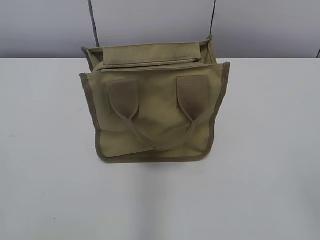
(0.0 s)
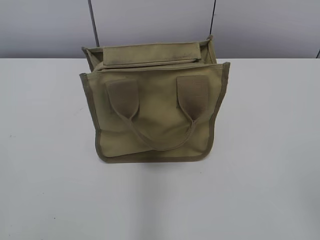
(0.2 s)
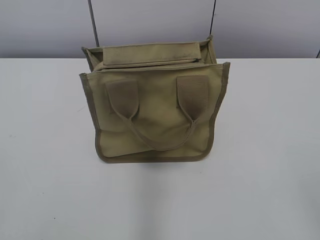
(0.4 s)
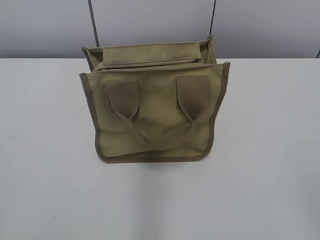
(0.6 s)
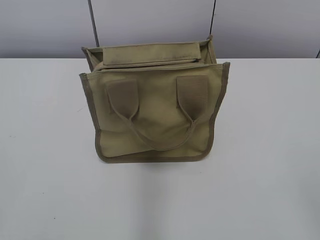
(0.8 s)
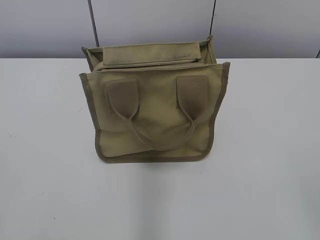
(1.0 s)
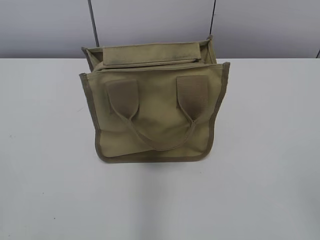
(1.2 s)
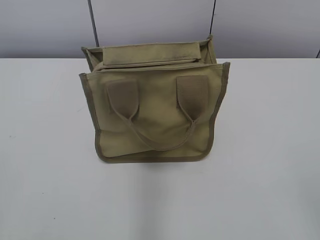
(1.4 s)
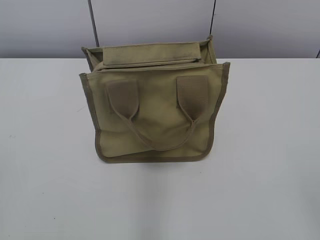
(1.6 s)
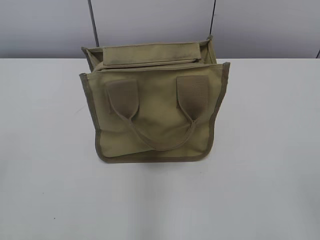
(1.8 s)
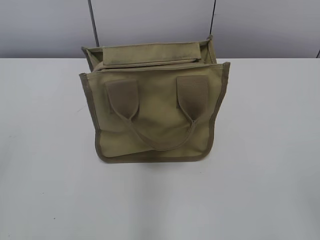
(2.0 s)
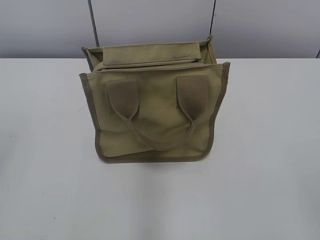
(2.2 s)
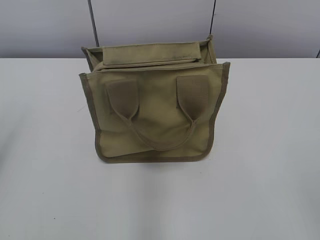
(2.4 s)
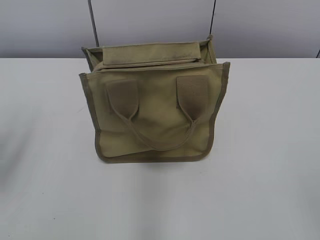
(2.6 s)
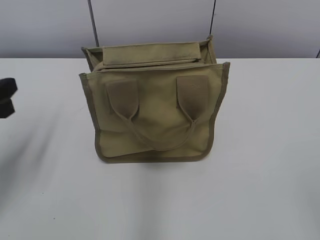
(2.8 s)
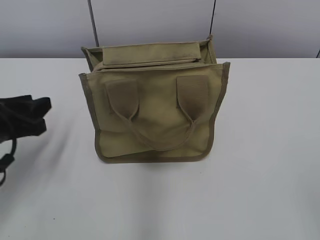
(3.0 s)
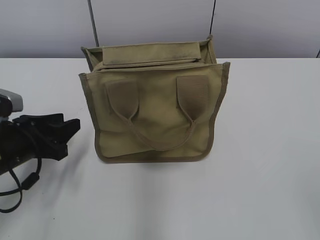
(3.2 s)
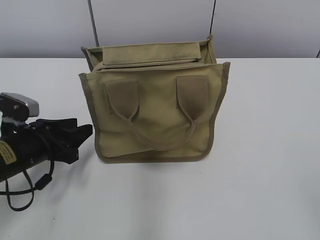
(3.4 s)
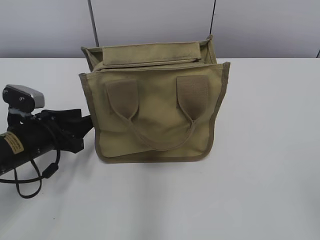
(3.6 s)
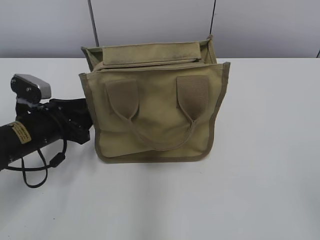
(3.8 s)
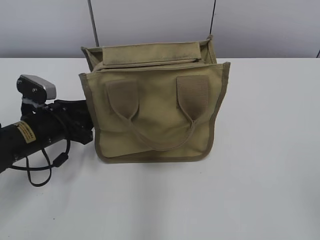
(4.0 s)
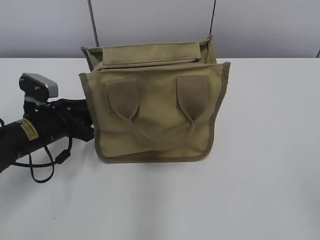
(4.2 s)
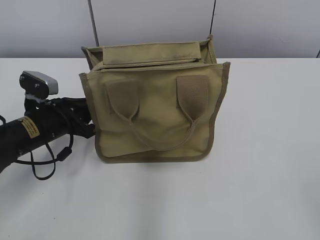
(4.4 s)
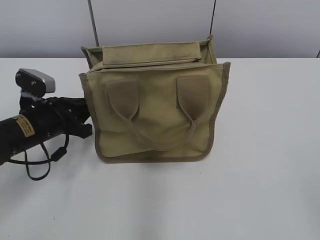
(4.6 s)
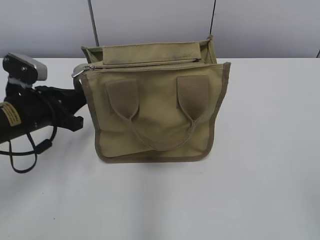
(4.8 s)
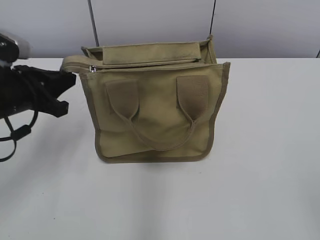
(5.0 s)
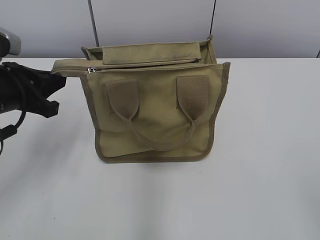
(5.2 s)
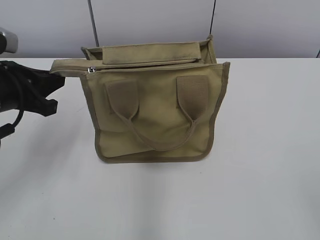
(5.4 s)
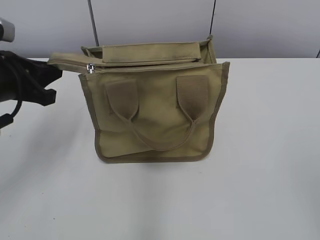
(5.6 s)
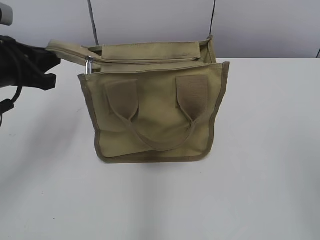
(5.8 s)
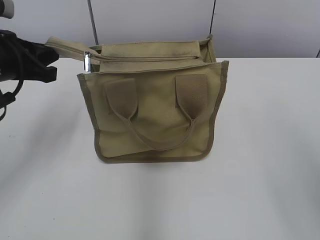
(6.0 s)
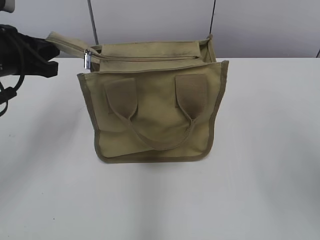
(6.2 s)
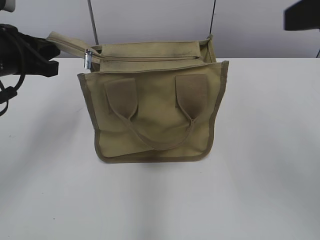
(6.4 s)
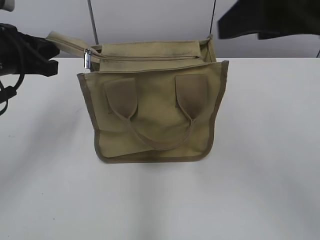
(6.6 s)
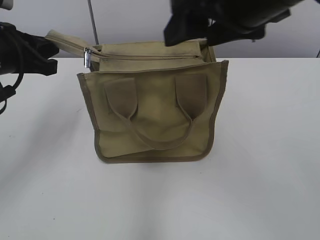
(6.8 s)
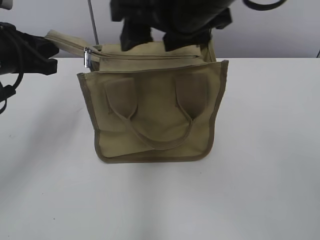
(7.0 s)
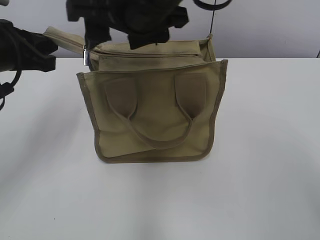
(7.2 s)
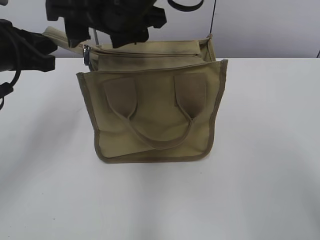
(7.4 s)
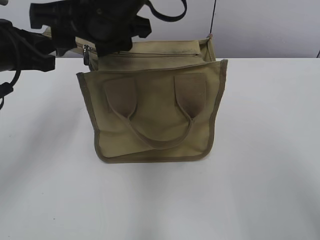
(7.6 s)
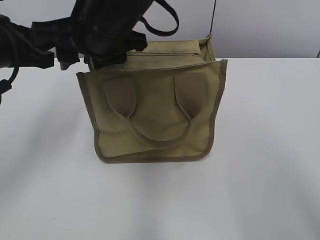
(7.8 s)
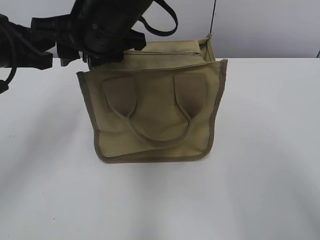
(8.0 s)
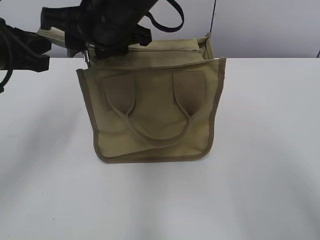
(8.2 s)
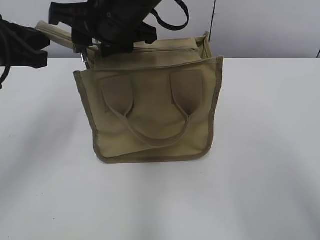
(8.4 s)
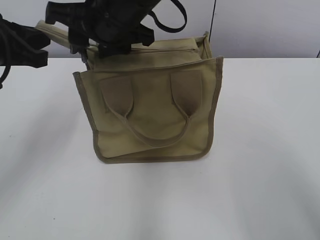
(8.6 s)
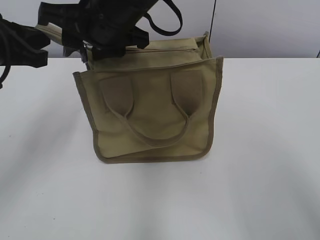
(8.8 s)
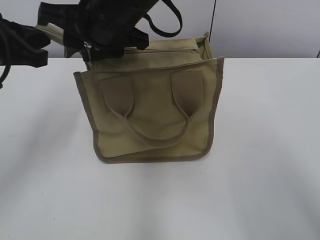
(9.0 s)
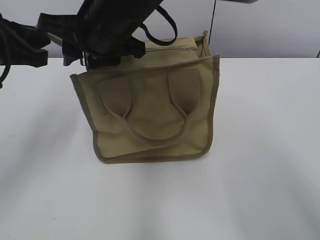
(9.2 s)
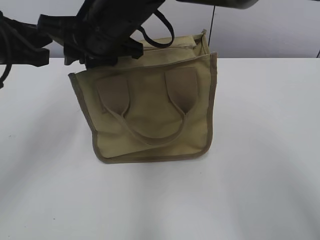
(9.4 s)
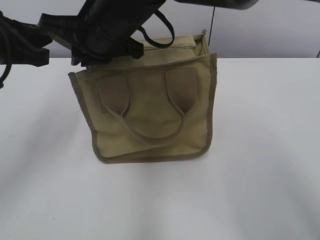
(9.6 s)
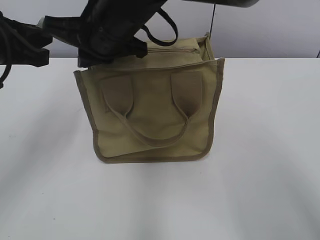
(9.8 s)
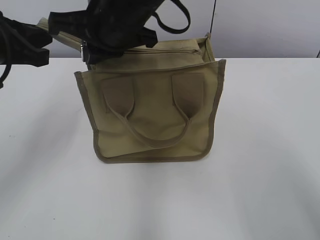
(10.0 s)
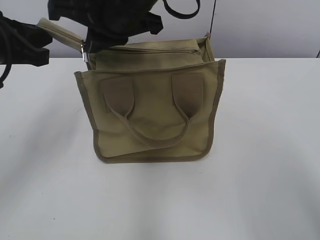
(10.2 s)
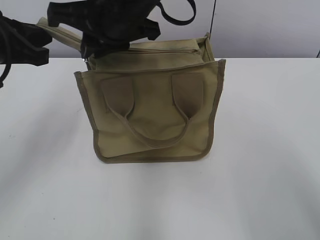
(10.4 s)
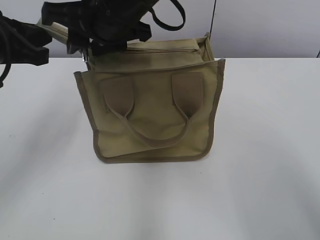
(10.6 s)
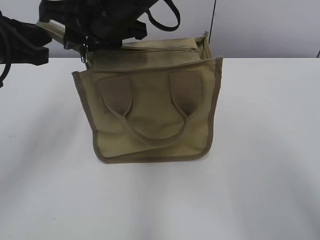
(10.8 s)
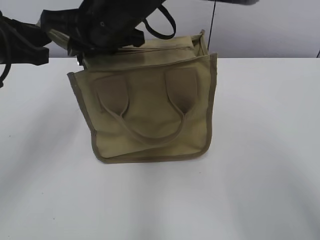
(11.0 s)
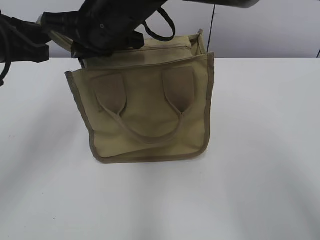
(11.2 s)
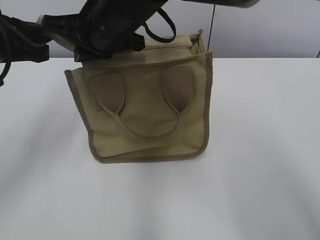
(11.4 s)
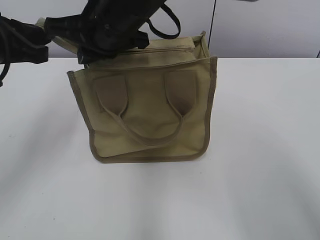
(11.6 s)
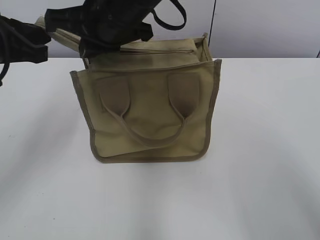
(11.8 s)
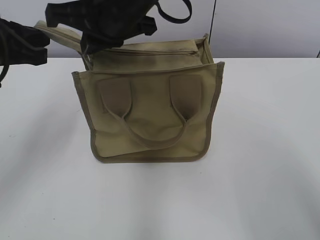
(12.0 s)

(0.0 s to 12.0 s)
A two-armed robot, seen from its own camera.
1.6 s - 3.0 s: The left gripper travels forward and downward by about 25 cm.
3.0 s - 4.4 s: The left gripper is displaced forward, downward and to the right by about 10 cm, and closes its fingers.
4.4 s - 6.0 s: The right gripper shifts about 15 cm forward and upward, while the left gripper moves upward, some 15 cm.
6.0 s - 7.6 s: The right gripper heads to the left and forward, covering roughly 35 cm.
7.6 s - 9.0 s: There are only small adjustments of the grippers.
9.0 s - 10.4 s: The right gripper closes up.
10.4 s - 12.0 s: The right gripper opens, then closes again.

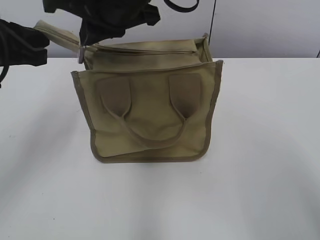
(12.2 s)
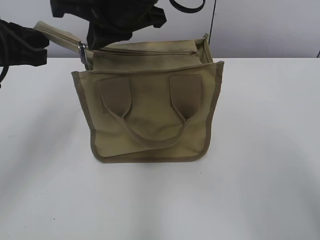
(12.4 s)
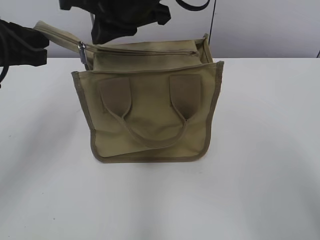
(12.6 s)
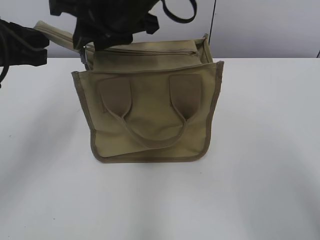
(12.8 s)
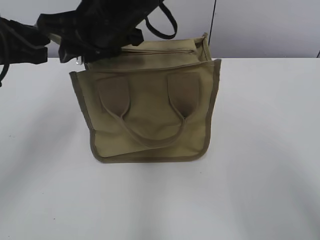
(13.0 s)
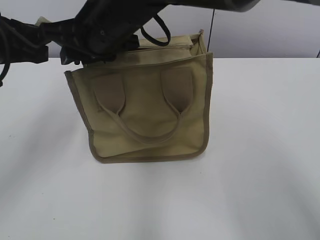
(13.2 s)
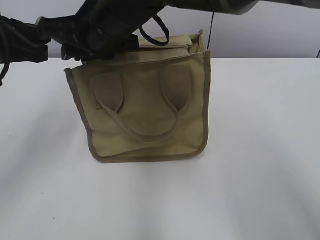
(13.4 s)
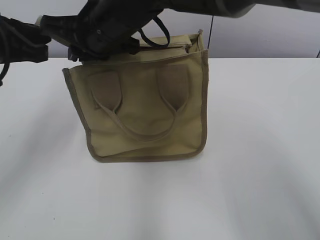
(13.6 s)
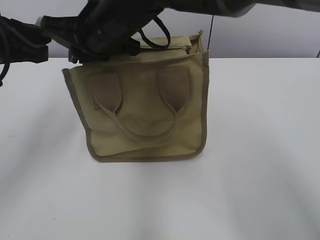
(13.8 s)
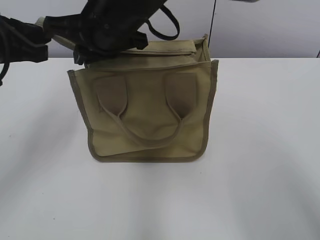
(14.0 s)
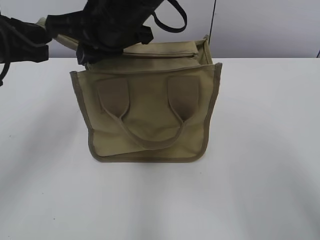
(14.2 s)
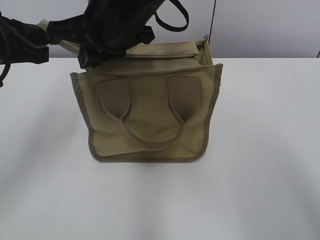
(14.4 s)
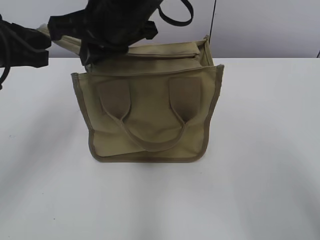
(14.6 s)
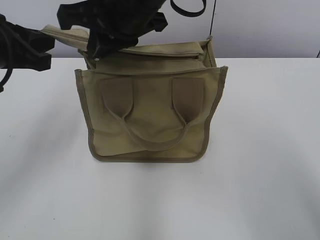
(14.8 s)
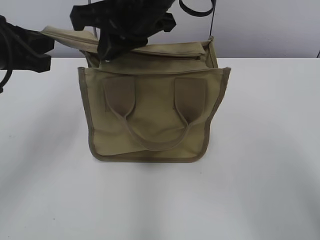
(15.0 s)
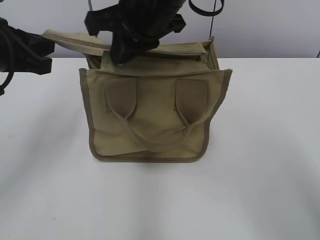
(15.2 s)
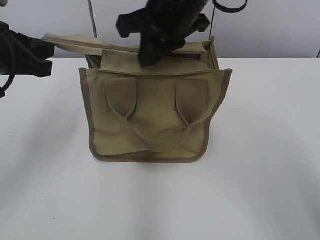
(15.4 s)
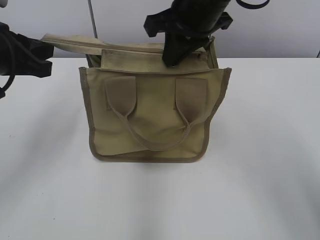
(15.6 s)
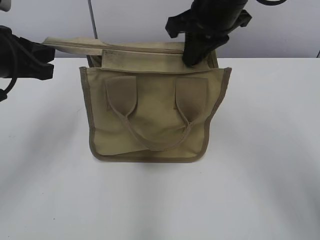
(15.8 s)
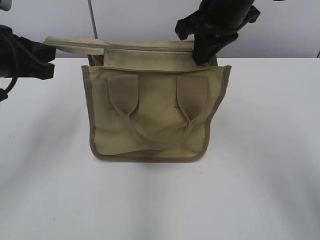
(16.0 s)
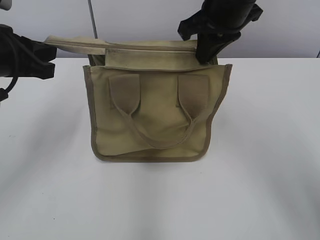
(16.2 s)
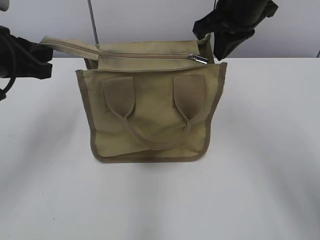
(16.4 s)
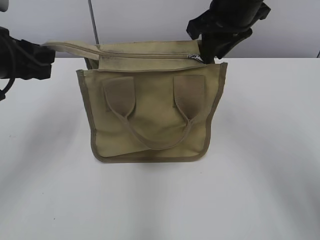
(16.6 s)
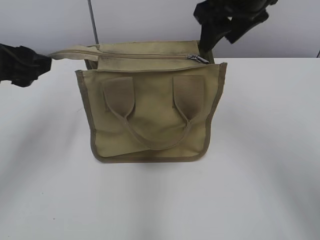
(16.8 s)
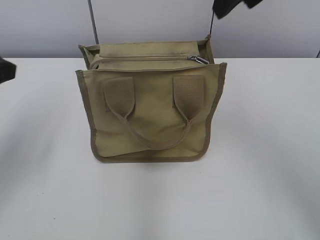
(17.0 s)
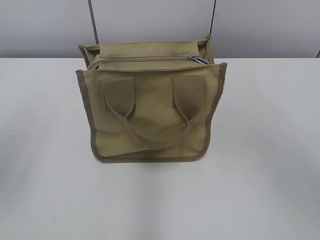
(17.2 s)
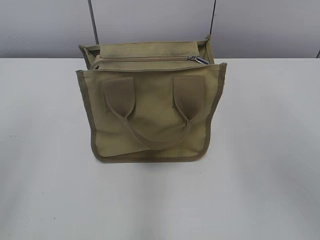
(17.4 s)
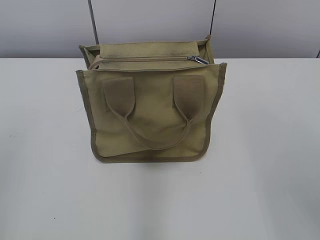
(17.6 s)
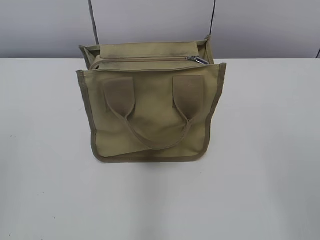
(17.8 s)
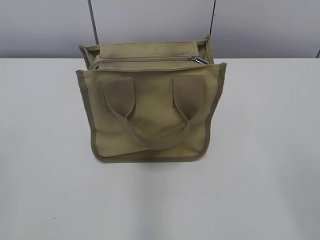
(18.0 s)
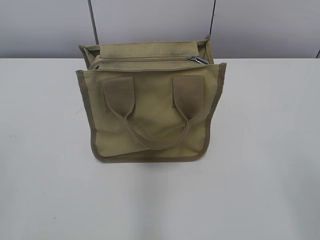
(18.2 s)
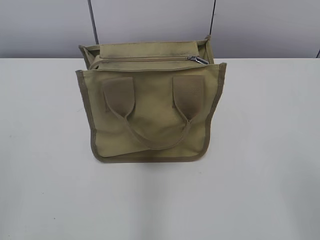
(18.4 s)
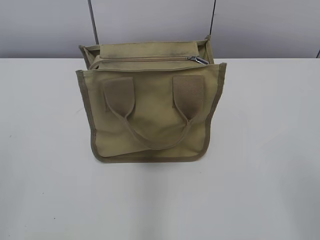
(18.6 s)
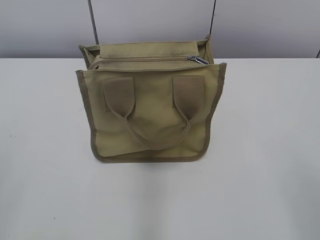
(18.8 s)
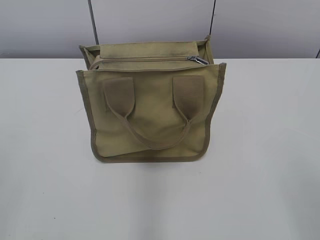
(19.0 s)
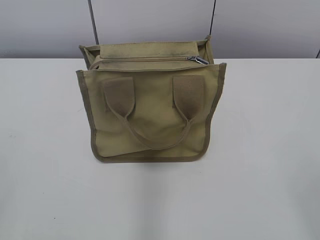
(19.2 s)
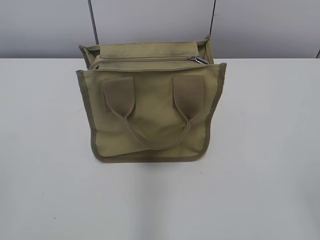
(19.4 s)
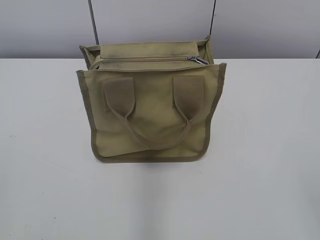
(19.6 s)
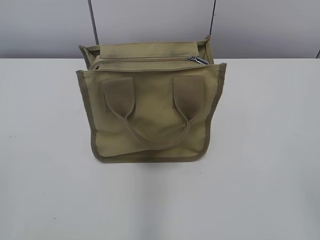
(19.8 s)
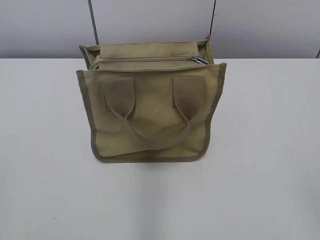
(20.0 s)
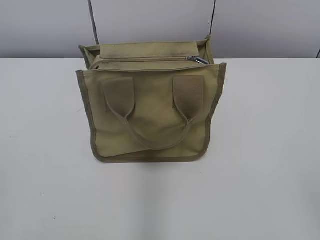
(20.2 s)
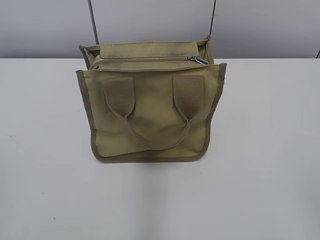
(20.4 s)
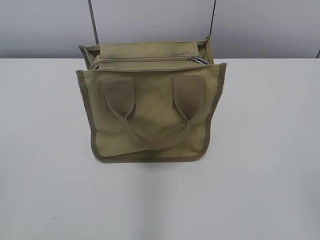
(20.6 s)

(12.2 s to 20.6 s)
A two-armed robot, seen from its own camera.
Step, 12.2 s - 16.2 s: Zip up the bag with your right hand.
Step, 16.4 s - 16.8 s: Grab the zipper with your left hand.
12.2 s - 13.6 s: The right gripper shifts about 5 cm downward, and opens, then closes again.
13.6 s - 15.0 s: The right gripper ends up about 5 cm from where it was.
15.0 s - 16.4 s: The right gripper heads to the right and forward, covering roughly 15 cm.
16.4 s - 17.8 s: The left gripper shifts about 25 cm backward, and opens its fingers, while the right gripper moves backward and to the right, some 35 cm, and opens its fingers.

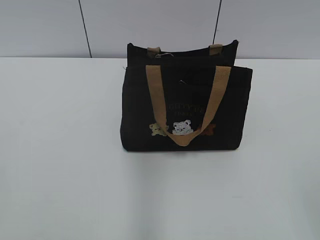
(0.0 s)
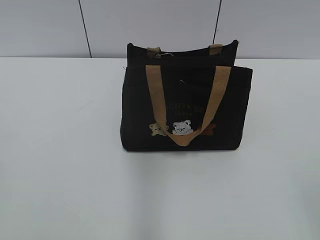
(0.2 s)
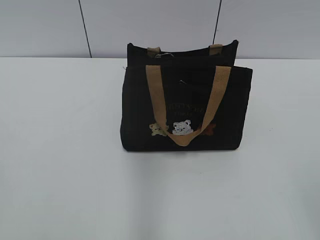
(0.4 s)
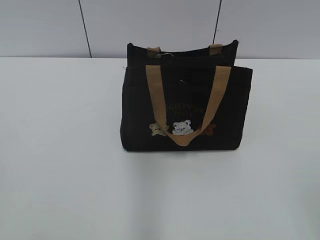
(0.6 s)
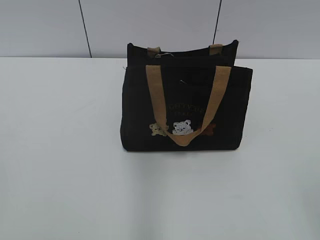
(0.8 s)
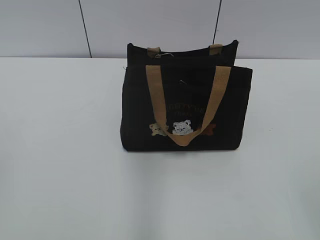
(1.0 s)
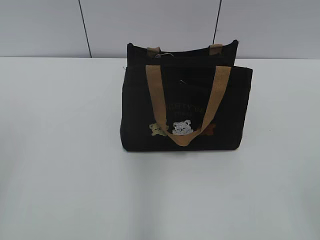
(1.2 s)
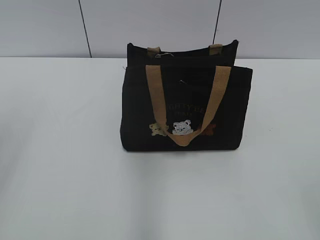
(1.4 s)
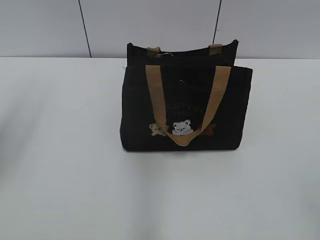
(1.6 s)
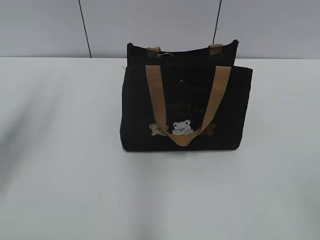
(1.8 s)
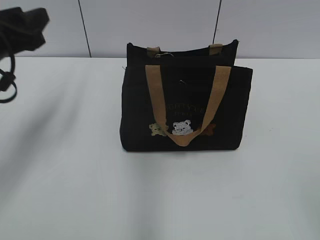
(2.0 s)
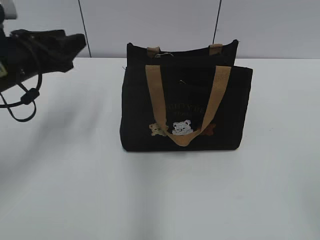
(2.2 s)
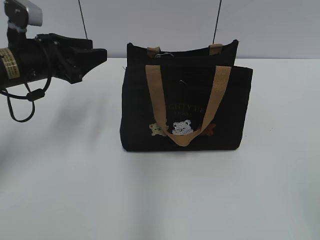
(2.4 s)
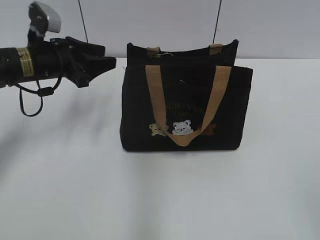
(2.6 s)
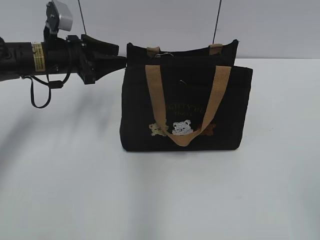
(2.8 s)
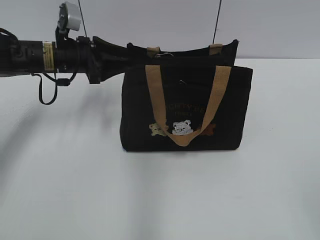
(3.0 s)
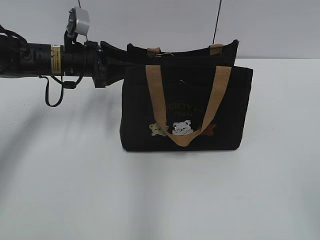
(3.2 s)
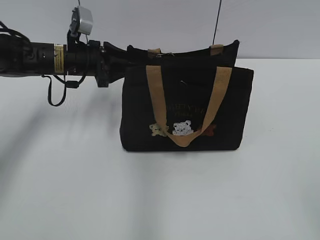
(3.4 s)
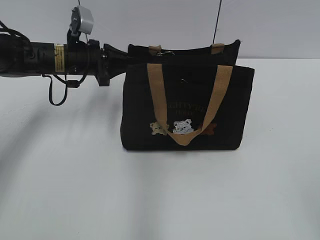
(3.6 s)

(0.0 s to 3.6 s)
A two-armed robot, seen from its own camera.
1.8 s - 3.6 s: The left gripper heads forward, downward and to the right, covering about 25 cm, and closes up.
